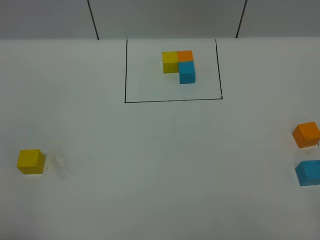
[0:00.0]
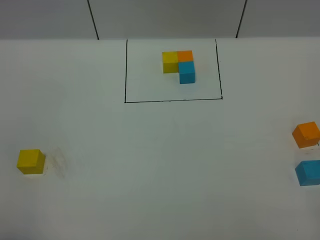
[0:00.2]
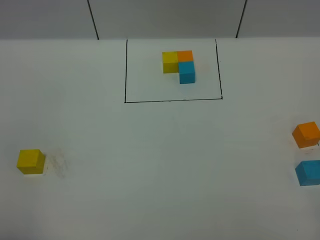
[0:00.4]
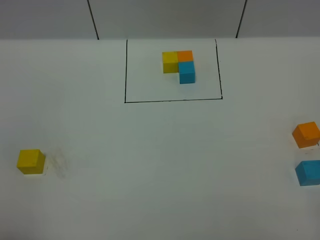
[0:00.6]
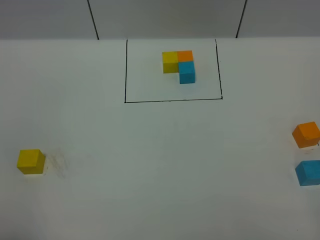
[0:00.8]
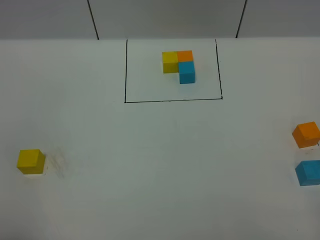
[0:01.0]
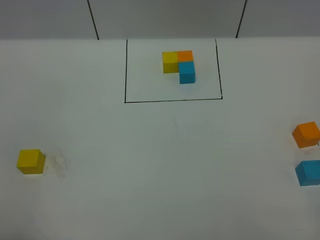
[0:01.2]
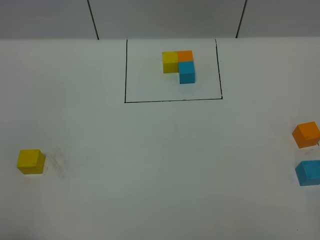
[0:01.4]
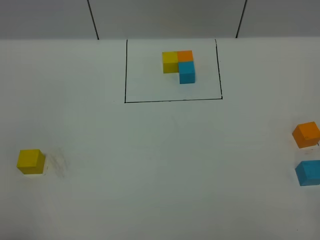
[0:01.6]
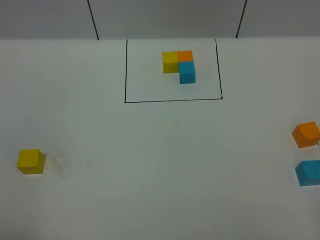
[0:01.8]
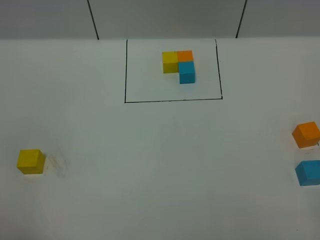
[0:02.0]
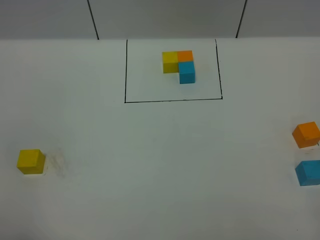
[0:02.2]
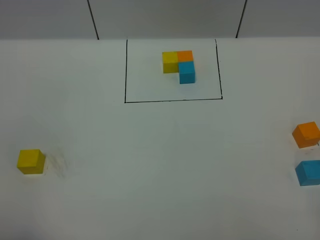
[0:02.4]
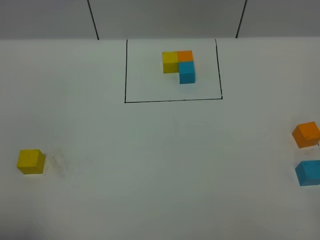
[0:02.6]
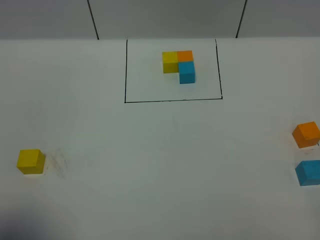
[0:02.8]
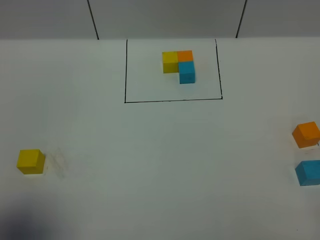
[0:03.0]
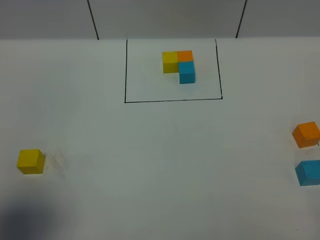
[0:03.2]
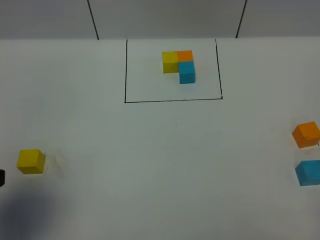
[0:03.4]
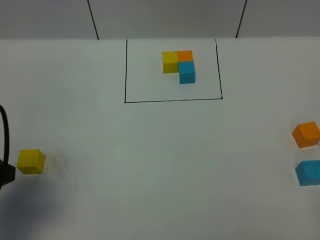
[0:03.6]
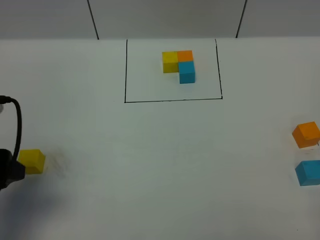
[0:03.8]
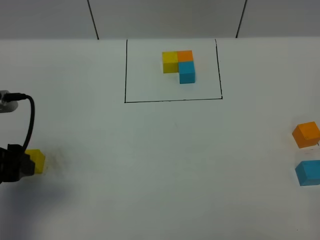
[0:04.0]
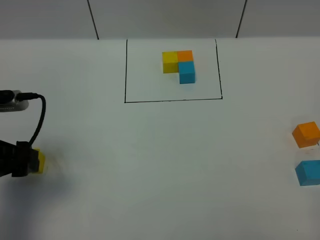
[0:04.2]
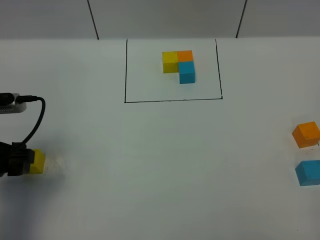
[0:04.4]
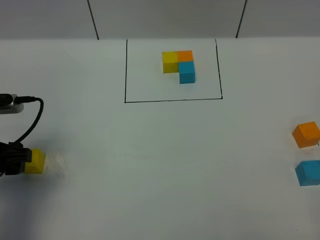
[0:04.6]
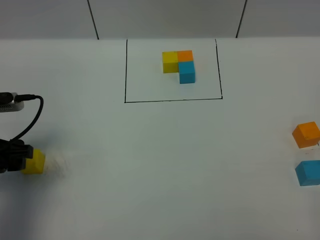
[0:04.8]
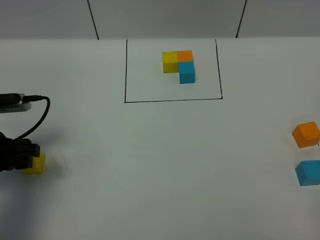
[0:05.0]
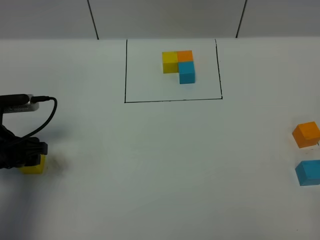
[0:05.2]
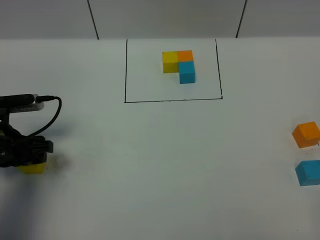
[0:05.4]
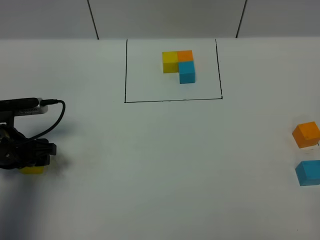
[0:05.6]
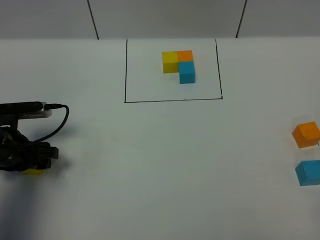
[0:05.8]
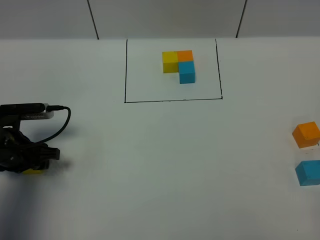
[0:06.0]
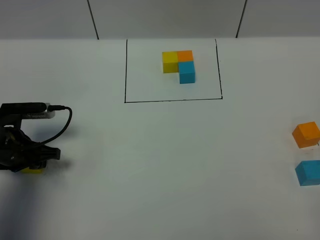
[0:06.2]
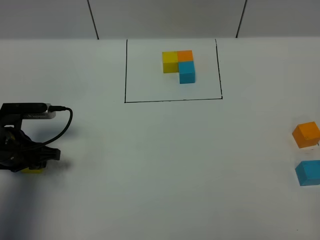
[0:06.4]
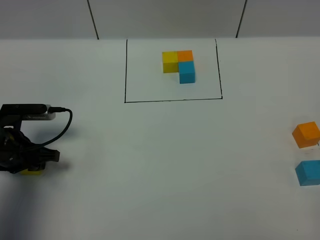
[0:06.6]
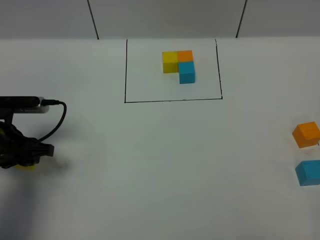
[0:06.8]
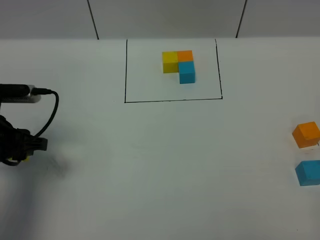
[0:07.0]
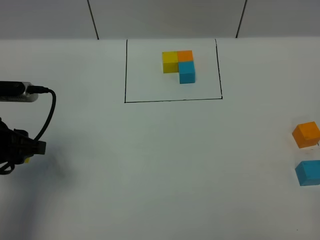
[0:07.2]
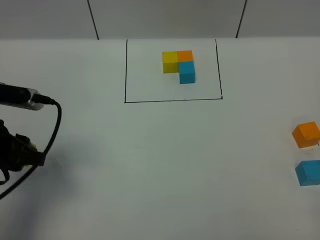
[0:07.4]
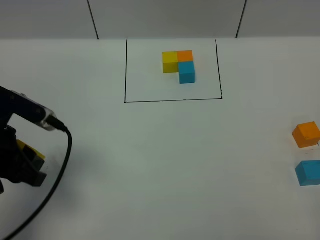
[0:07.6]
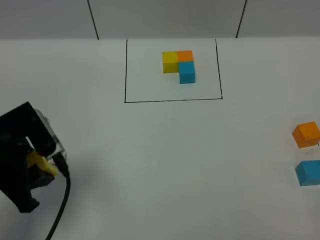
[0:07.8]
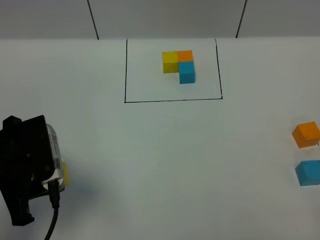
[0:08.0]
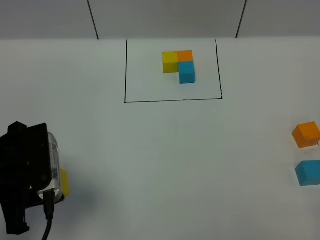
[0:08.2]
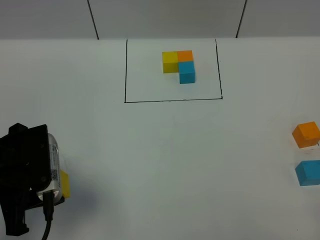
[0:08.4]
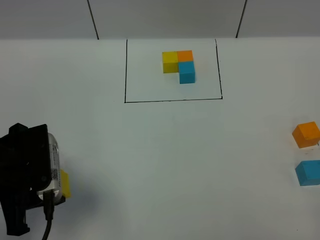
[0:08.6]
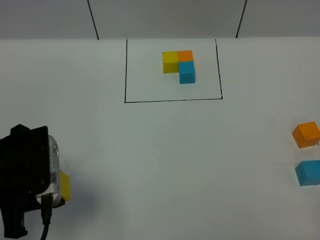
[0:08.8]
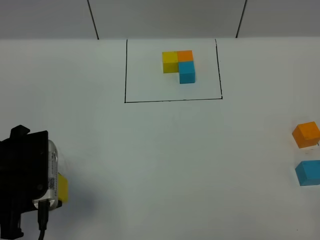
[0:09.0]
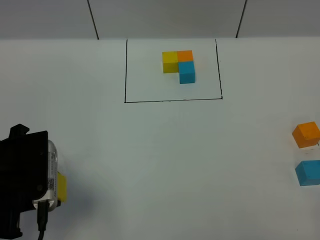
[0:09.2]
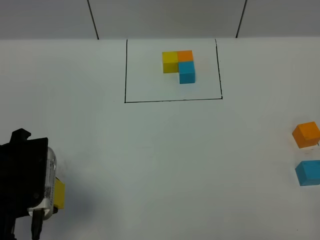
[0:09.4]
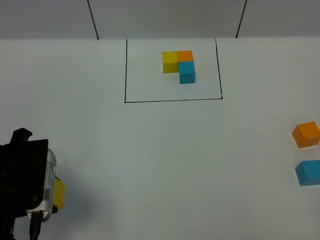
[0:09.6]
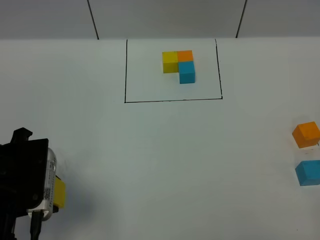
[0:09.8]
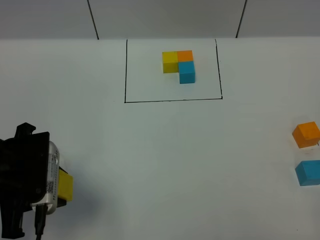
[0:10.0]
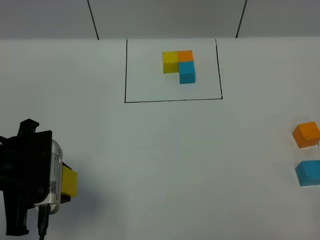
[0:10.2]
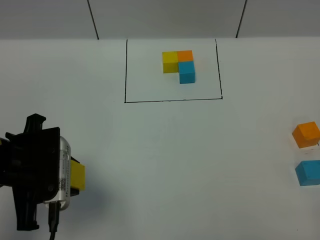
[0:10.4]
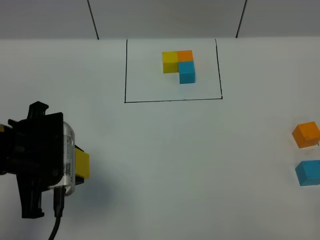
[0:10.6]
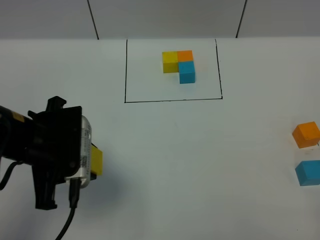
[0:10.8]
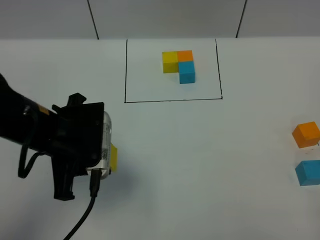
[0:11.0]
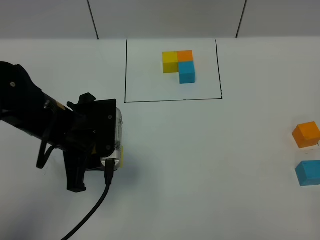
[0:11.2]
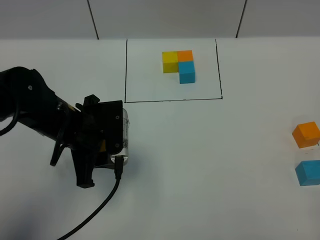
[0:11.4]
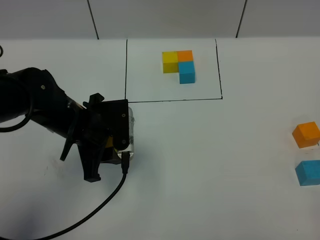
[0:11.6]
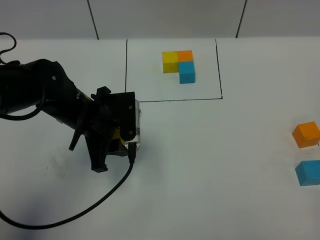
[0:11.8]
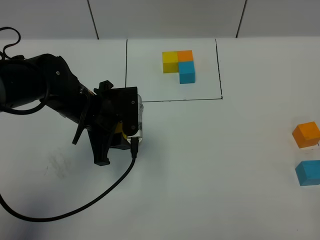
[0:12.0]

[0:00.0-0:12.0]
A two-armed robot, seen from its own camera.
Task of the whole recording: According to the building block template in front, assemble the scattered blocks together.
0:00.0 to 0:01.6: The two grippers keep their place.
0:01.6 to 0:03.0: The left gripper moves forward, some 5 cm, and opens its fingers.
0:03.0 to 0:04.4: The left gripper shifts about 20 cm forward and downward.
0:04.4 to 0:06.0: The left gripper is displaced downward and forward by some 10 cm.
0:06.0 to 0:07.6: The left gripper heads upward and backward, covering about 15 cm.
0:09.0 to 0:10.4: There are only small adjustments of the grippers.
0:10.4 to 0:12.0: The left gripper travels forward, to the right and downward by some 15 cm.

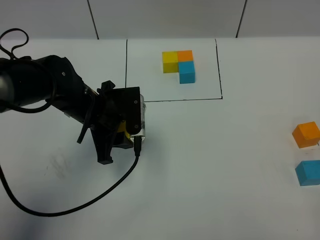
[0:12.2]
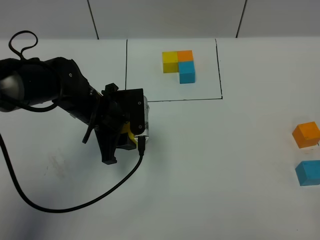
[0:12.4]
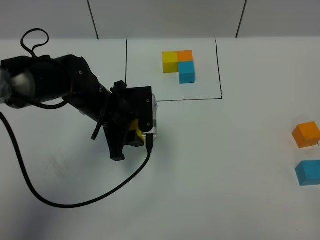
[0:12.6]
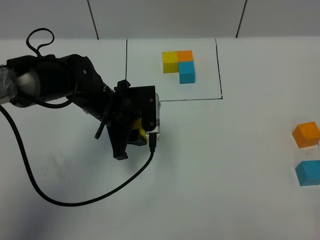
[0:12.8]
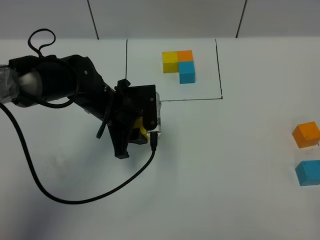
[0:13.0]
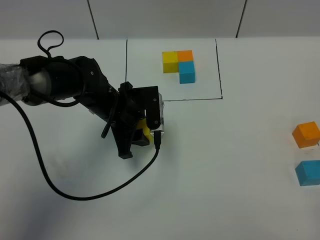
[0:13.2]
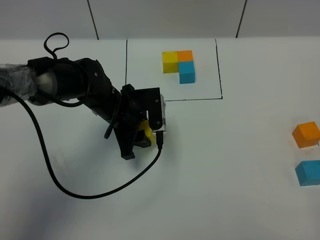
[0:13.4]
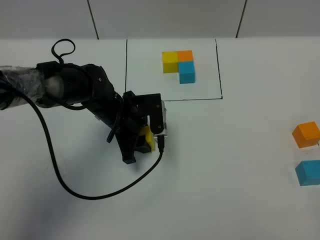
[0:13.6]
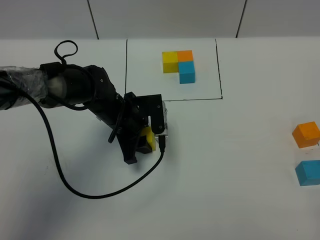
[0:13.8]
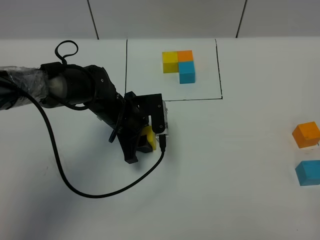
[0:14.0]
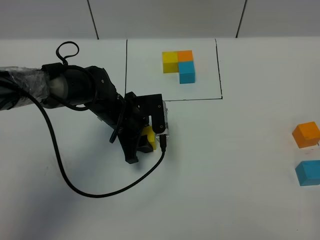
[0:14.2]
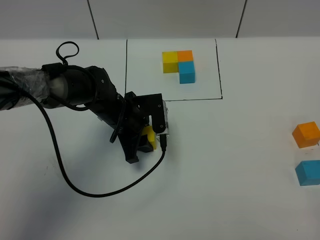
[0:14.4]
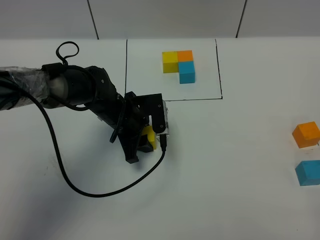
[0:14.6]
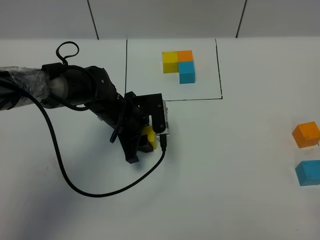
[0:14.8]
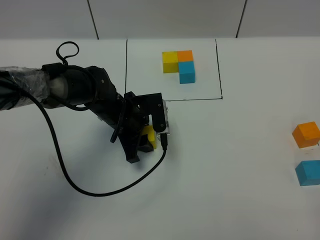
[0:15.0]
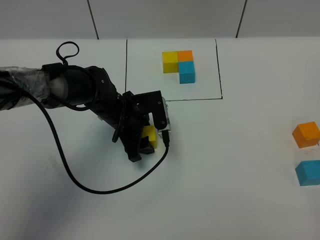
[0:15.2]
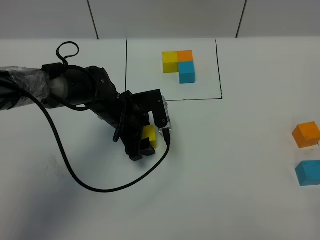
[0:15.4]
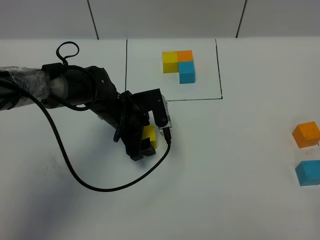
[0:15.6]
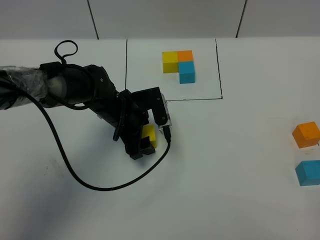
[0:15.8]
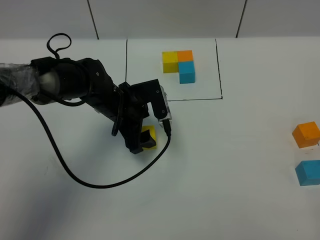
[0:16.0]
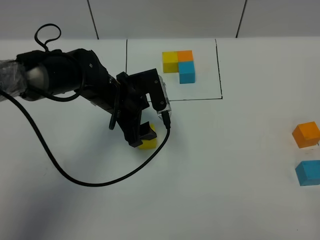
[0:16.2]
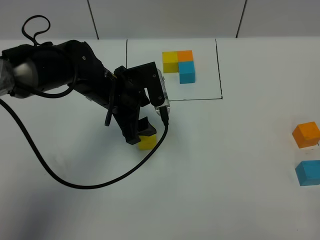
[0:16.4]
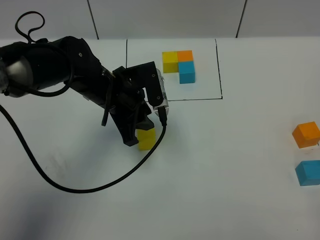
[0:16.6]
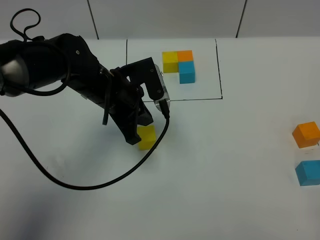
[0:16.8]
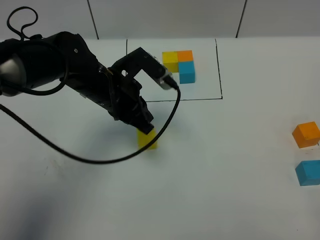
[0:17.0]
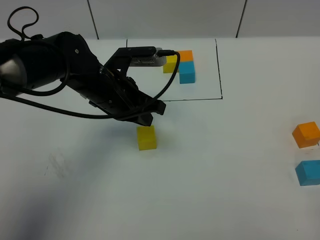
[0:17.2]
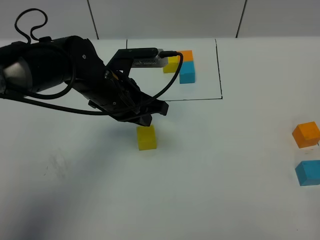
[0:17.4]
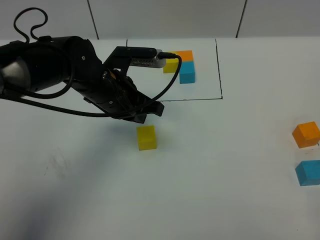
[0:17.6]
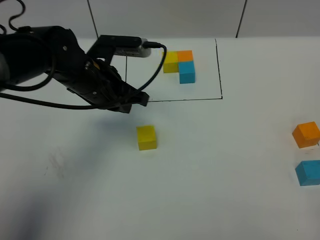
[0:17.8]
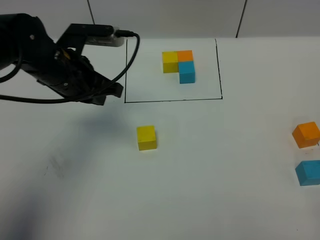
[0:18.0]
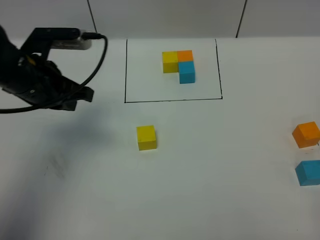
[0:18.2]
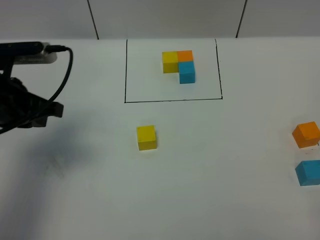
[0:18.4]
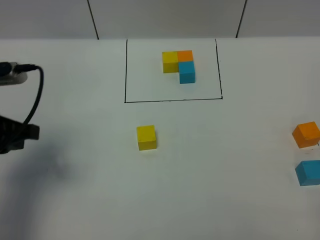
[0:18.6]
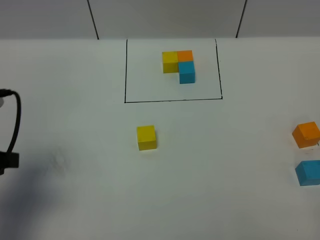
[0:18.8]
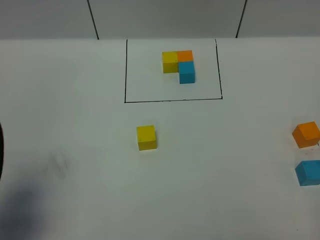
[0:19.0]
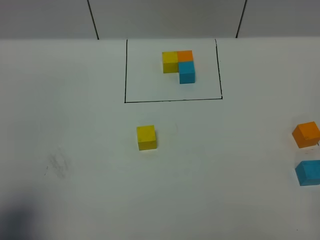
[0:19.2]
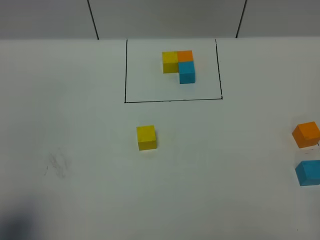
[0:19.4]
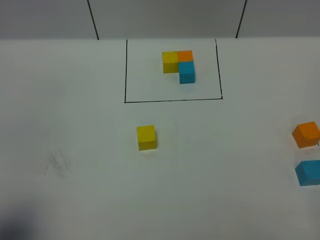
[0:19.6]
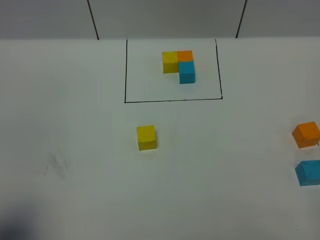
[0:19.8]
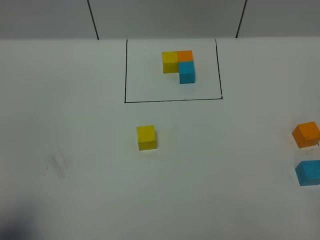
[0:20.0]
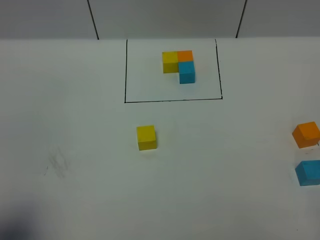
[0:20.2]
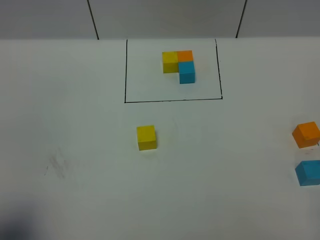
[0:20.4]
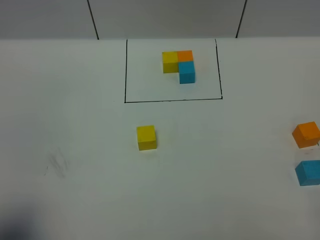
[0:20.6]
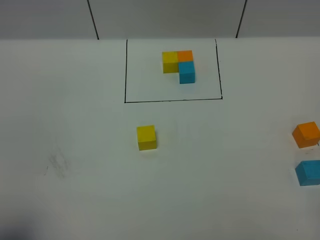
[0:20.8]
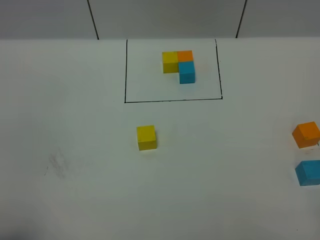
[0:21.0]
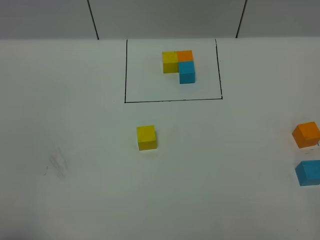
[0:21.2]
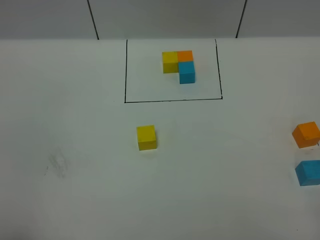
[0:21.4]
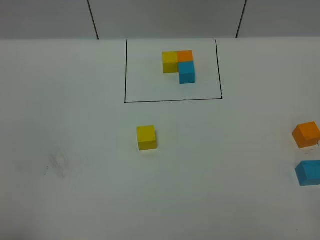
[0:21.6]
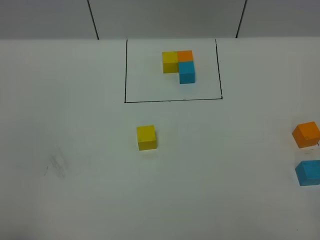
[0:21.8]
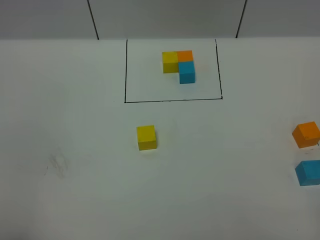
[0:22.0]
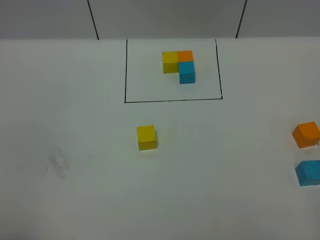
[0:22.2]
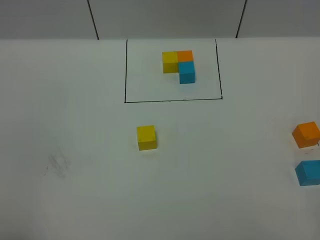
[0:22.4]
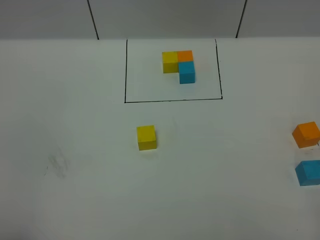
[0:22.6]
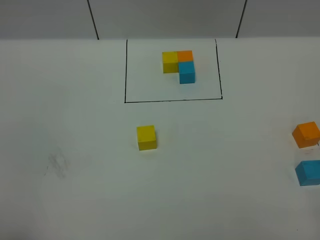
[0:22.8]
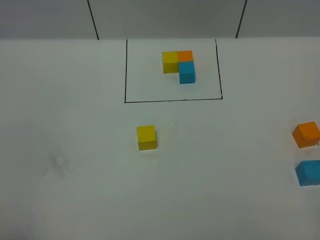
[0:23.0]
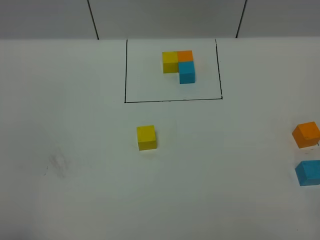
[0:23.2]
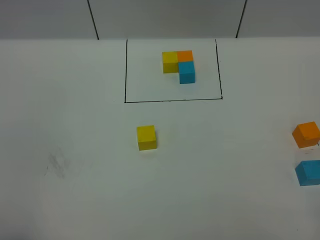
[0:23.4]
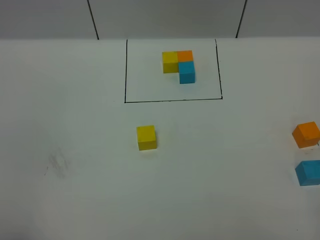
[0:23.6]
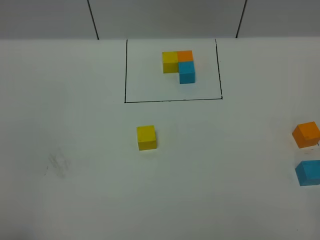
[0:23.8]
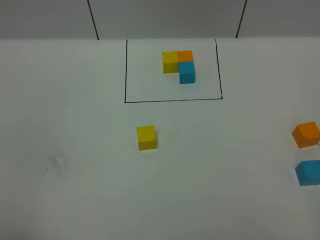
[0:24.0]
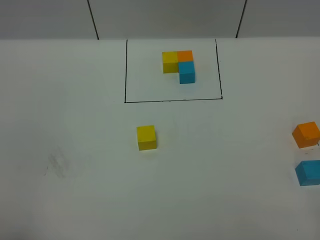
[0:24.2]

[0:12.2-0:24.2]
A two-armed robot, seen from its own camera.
Task of the whole recording: According to the building block template in front, assemble the scattered blocks together.
Step, 0:12.2 to 0:15.2: Put the yellow cube in the center of the table.
0:12.2 to 0:13.8: The left gripper is displaced downward by approximately 5 cm.
0:13.8 to 0:15.2: The grippers move only a little.
0:15.2 to 0:16.6: The left gripper travels upward by about 10 cm, and closes.
0:16.6 to 0:18.2: The left gripper moves to the left and upward, approximately 15 cm, and closes.
0:18.2 to 0:19.8: The left gripper shifts roughly 25 cm backward.
0:19.8 to 0:21.2: The left gripper shifts roughly 5 cm backward.
0:21.2 to 0:24.2: Both grippers stay put.
